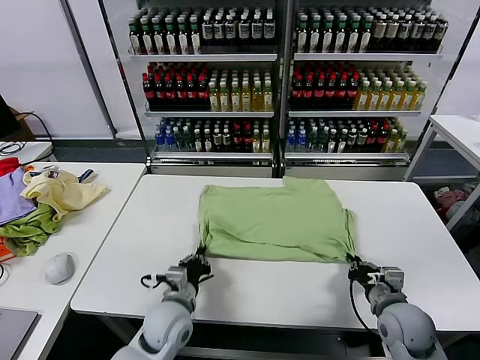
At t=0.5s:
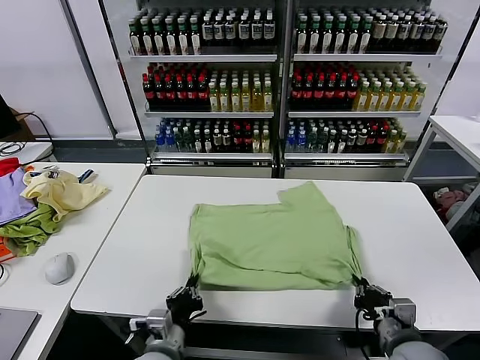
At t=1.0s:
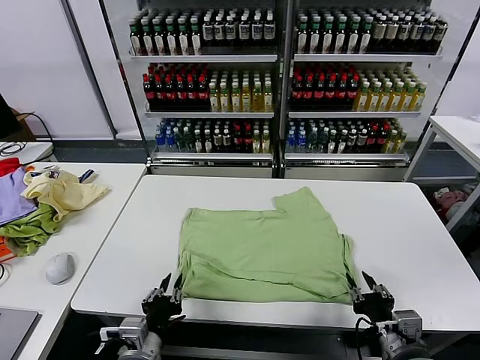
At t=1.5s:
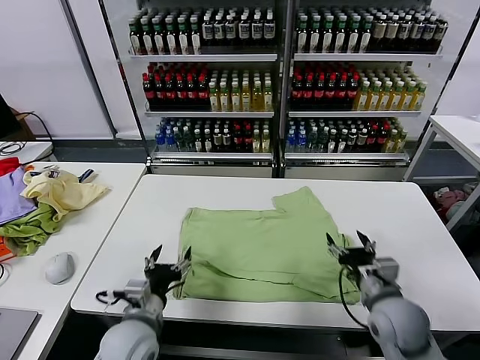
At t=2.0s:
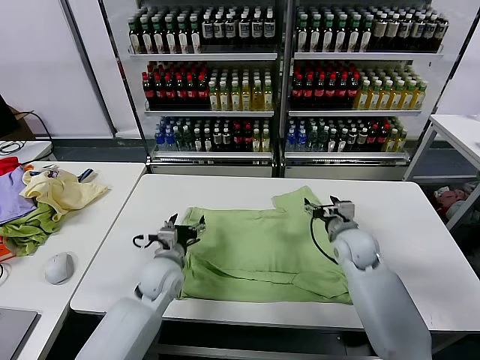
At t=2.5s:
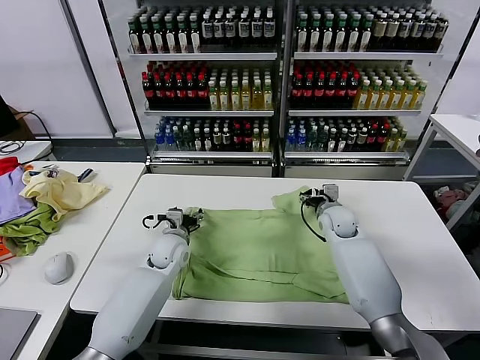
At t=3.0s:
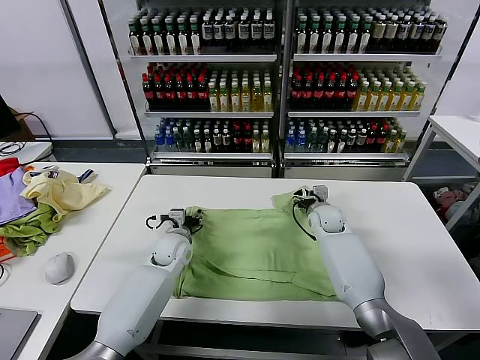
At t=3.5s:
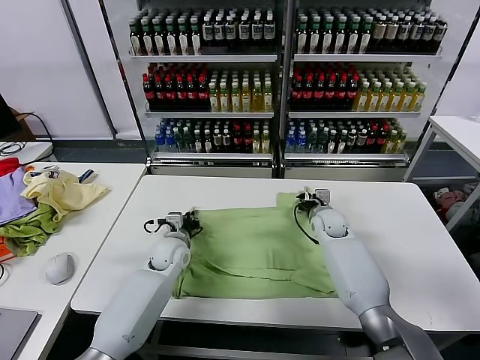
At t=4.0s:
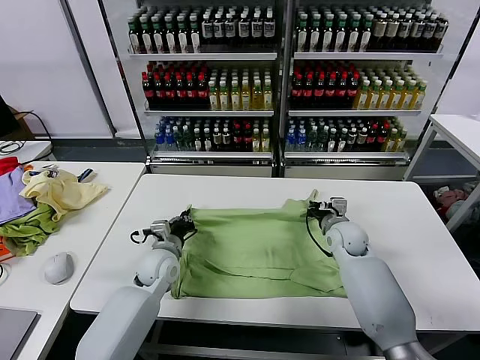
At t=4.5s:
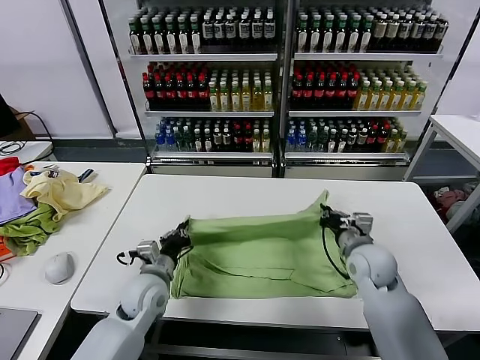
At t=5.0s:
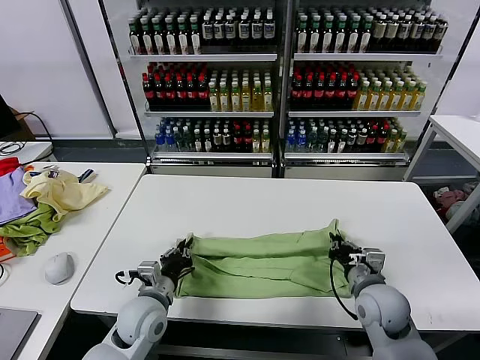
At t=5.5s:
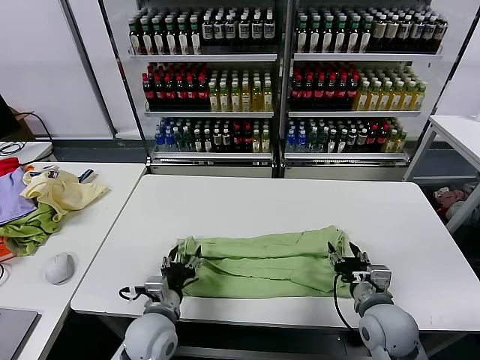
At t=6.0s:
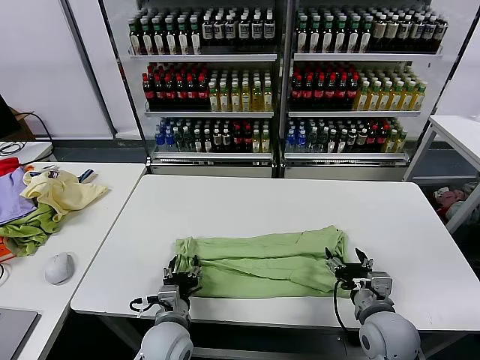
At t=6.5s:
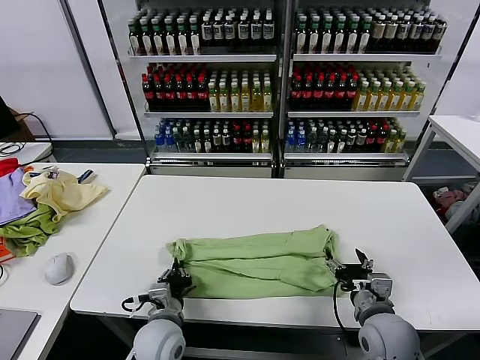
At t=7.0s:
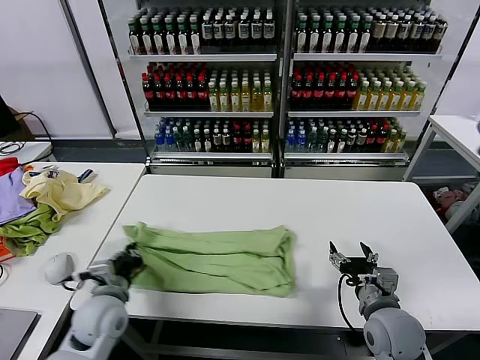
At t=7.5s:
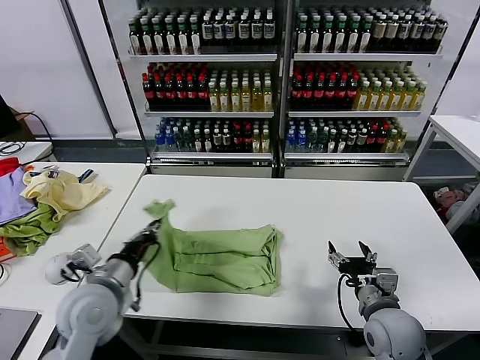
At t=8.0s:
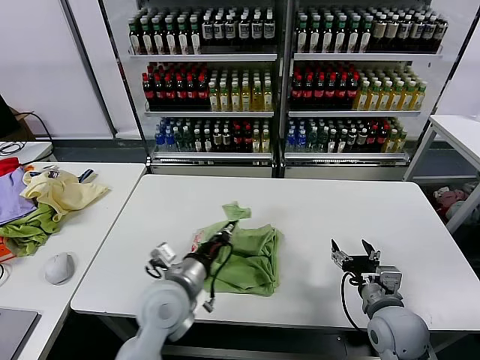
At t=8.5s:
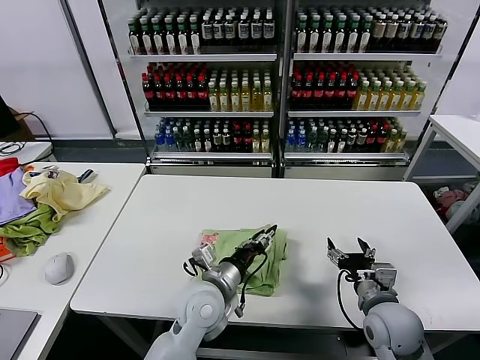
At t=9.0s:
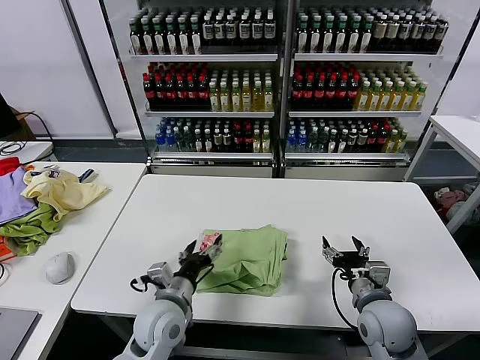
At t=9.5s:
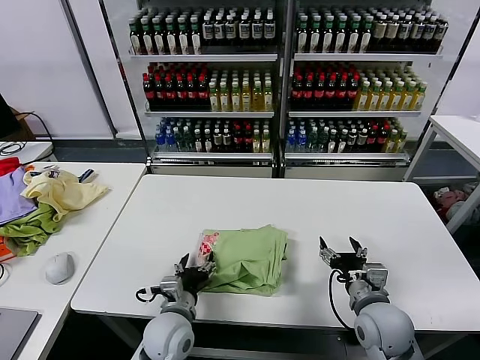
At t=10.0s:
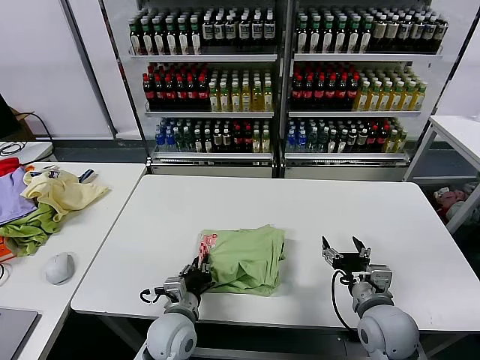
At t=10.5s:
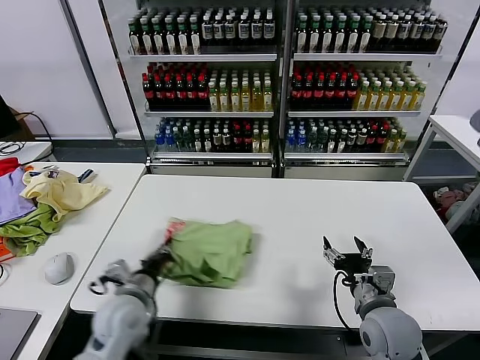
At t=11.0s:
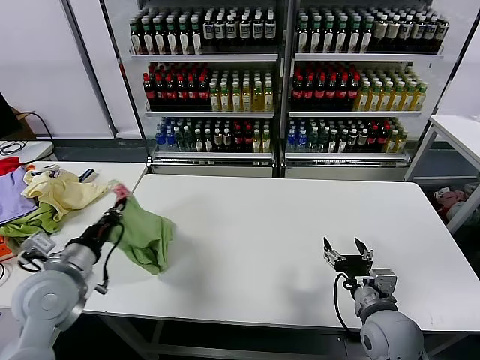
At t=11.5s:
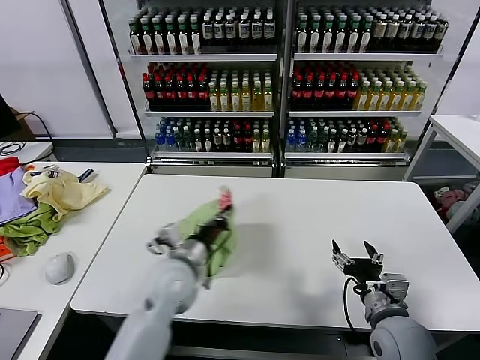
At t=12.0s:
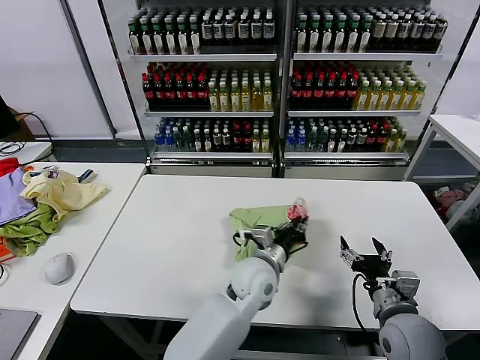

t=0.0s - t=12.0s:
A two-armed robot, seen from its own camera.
Task of the whole recording: fold and organize the clothes.
Step, t=1.0s - t=3.5s: use both grippers simultaneously to clamp the upper edge of the clothing fabric.
Step, t=4.0s - t=5.0s: use both grippers to drag the upper edge of the fabric backward and fold it over the lower edge.
Step, t=5.5s - t=6.5s: use the left gripper to clamp the left edge of the fabric.
Step, t=7.0s - t=8.5s: use the left gripper to drag the left edge of the fabric to the left and folds it over the right edge.
t=0.0s - t=2.0s: The right gripper heads forward, covering some 20 cm, and opens, while the left gripper is displaced forward by roughly 10 cm, and opens its fingers.
t=2.0s - t=4.0s: The right gripper reaches roughly 10 cm forward, then returns, and closes; the left gripper closes.
t=4.0s - t=6.0s: The two grippers go approximately 20 cm backward. The left gripper opens. Meanwhile the right gripper opens up.
t=6.0s - t=8.0s: The left gripper shifts approximately 10 cm upward, and closes its fingers.
t=8.0s - t=10.0s: The left gripper heads downward, covering some 10 cm, and opens and closes again.
t=10.0s - t=12.0s: The left gripper goes about 20 cm to the right, forward and upward.

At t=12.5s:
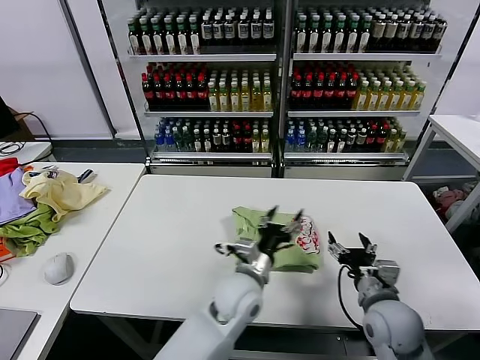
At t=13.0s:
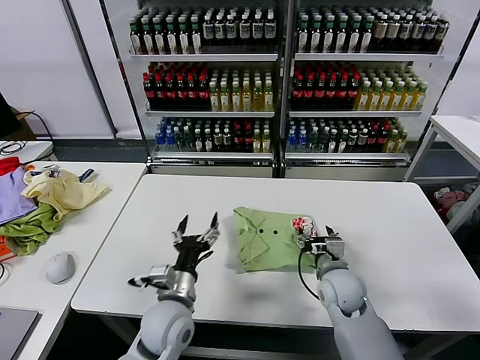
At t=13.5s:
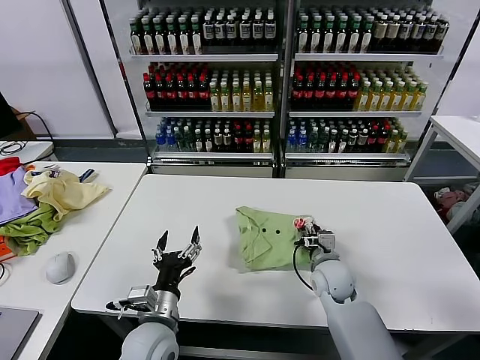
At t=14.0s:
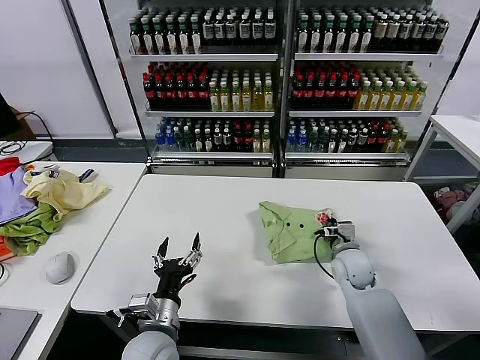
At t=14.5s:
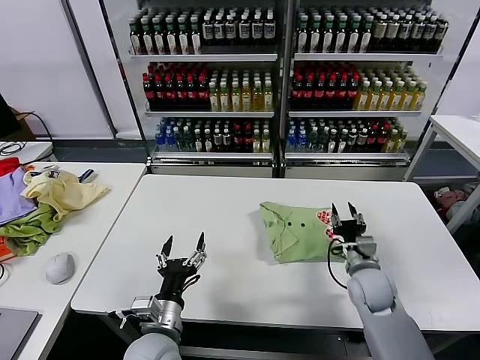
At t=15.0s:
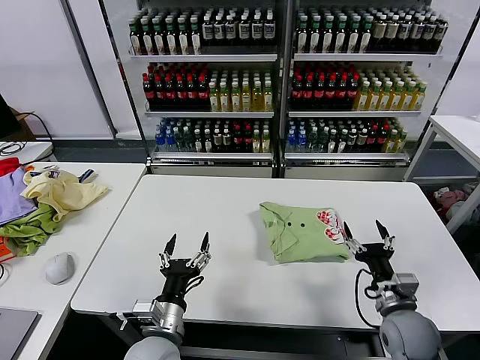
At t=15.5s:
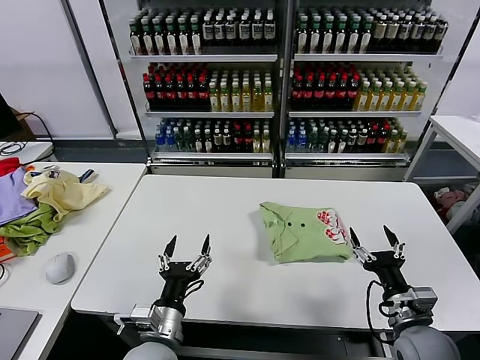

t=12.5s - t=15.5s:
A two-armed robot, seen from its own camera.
Task of the whole recording: fold and organize the clothes.
Step, t=12.5s - t=14.0s: Drag the clothes to the center of the table.
t=12.5s - t=14.0s: The right gripper shifts roughly 15 cm forward, and closes. Meanwhile the left gripper is displaced to the left and backward by about 20 cm.
t=14.0s - t=15.5s: The right gripper shifts approximately 20 cm backward, and opens up.

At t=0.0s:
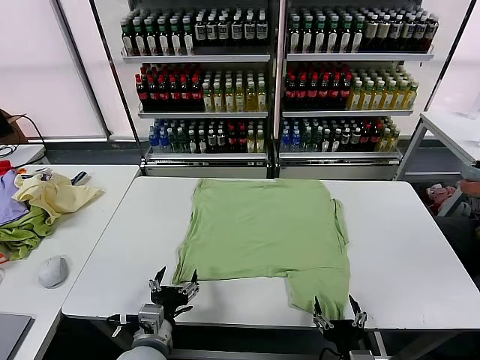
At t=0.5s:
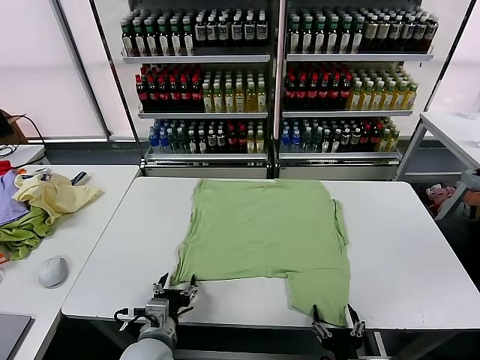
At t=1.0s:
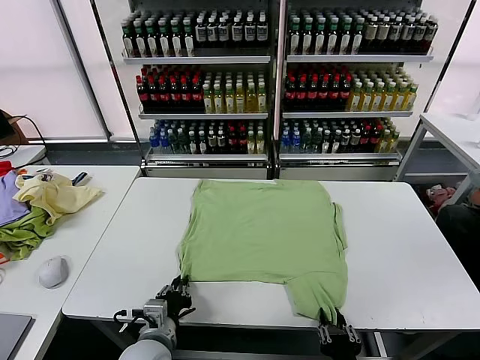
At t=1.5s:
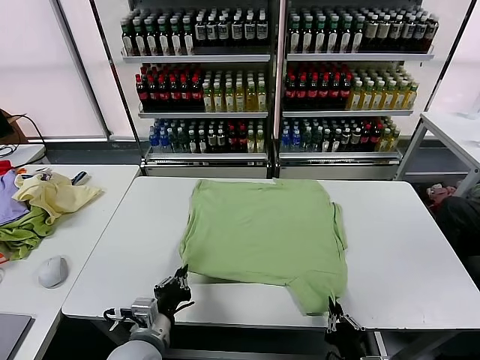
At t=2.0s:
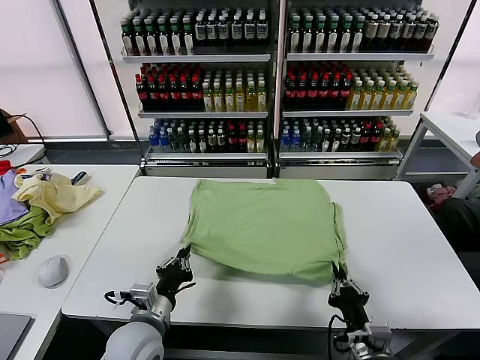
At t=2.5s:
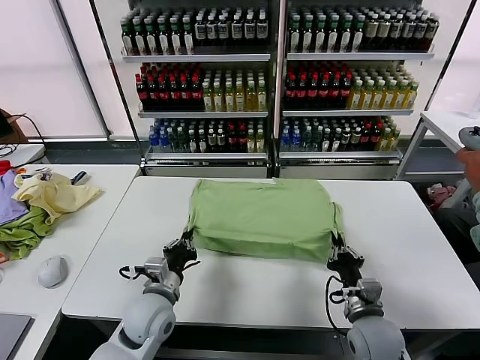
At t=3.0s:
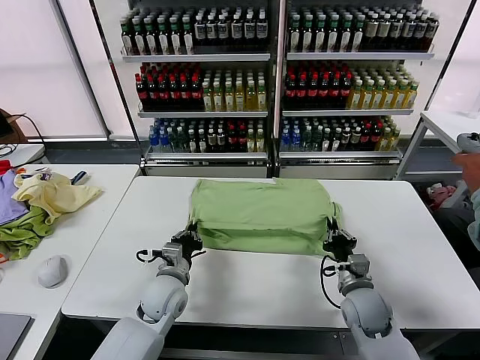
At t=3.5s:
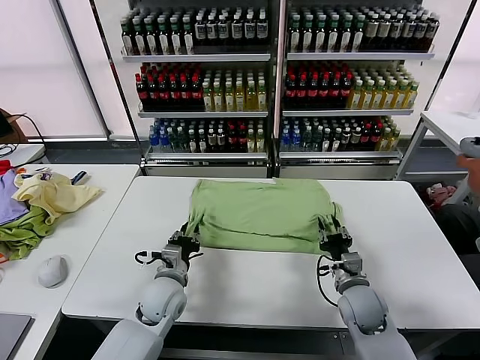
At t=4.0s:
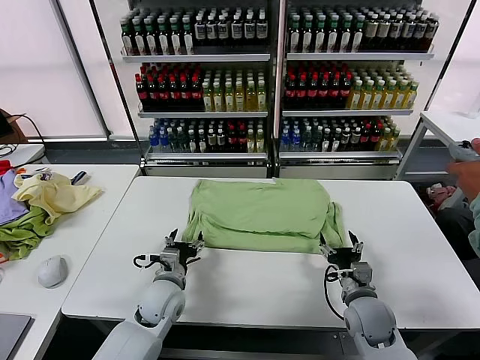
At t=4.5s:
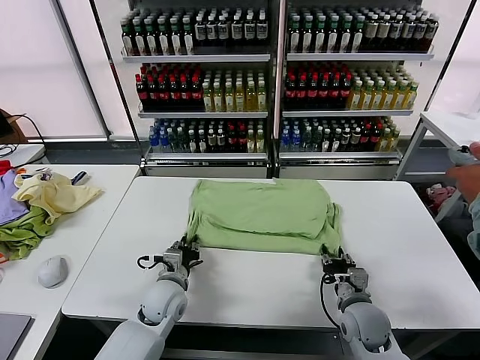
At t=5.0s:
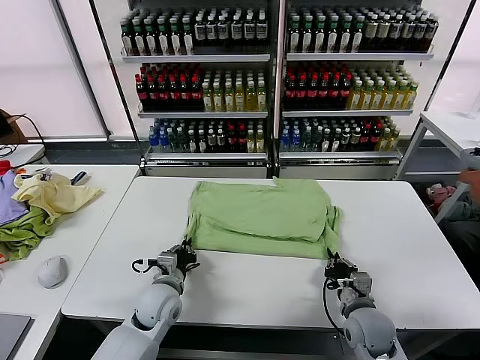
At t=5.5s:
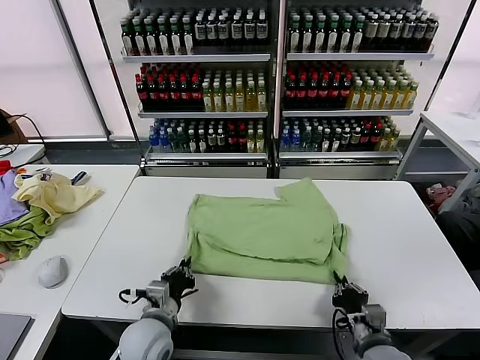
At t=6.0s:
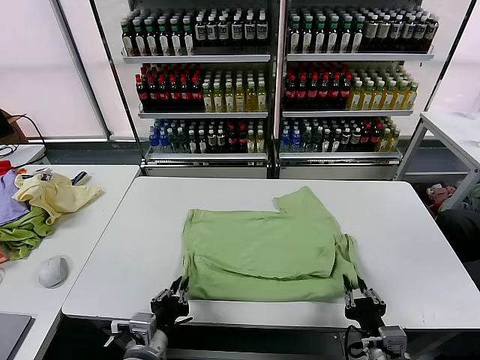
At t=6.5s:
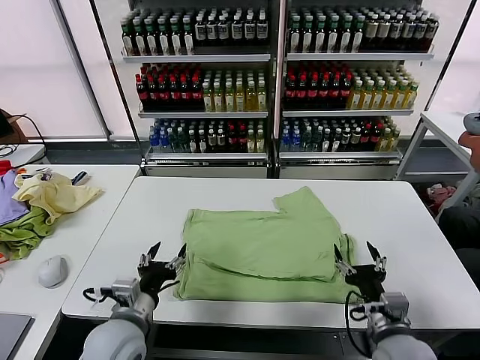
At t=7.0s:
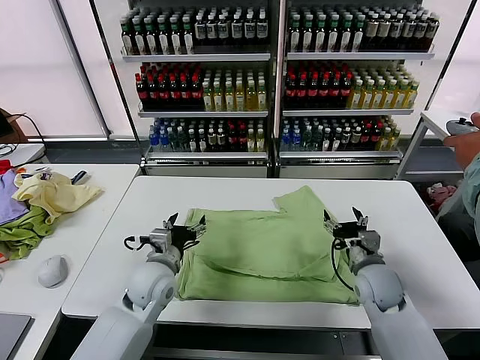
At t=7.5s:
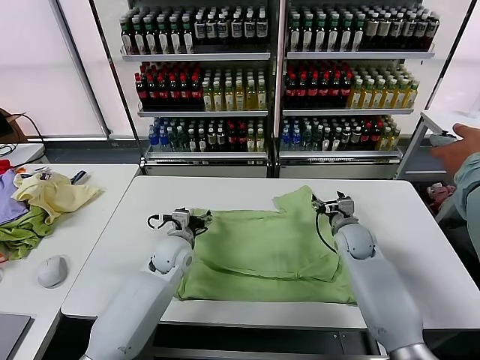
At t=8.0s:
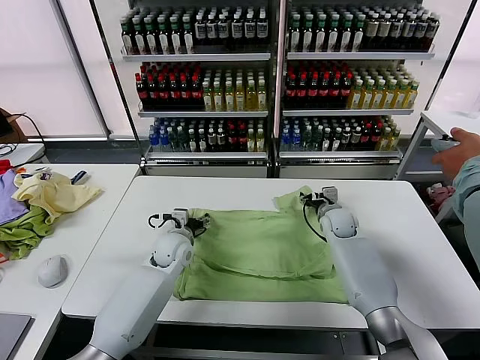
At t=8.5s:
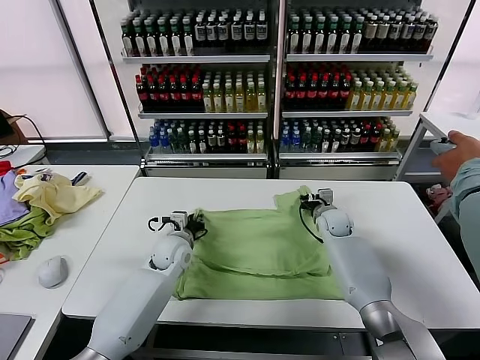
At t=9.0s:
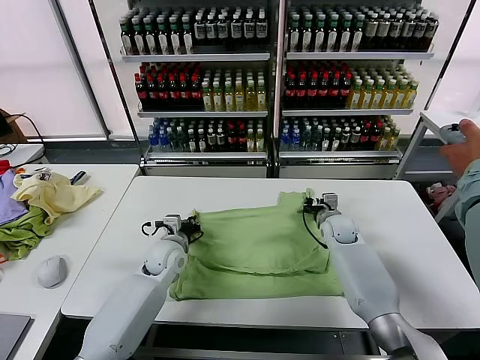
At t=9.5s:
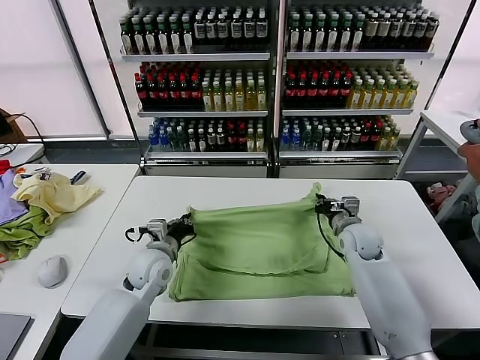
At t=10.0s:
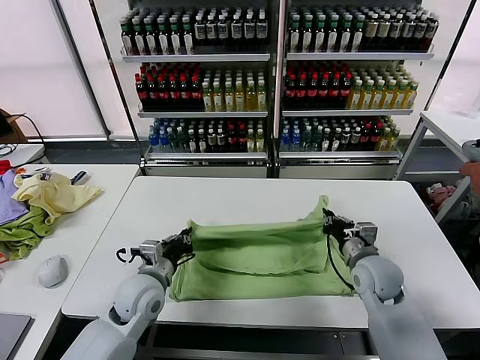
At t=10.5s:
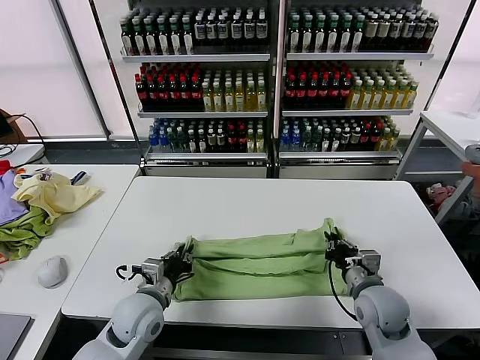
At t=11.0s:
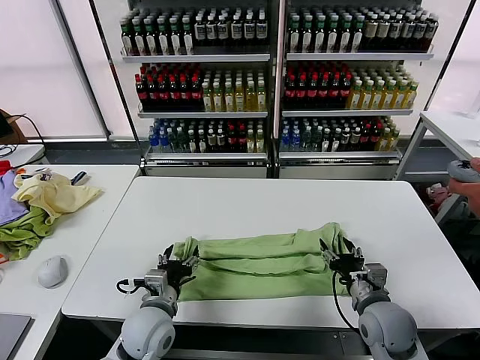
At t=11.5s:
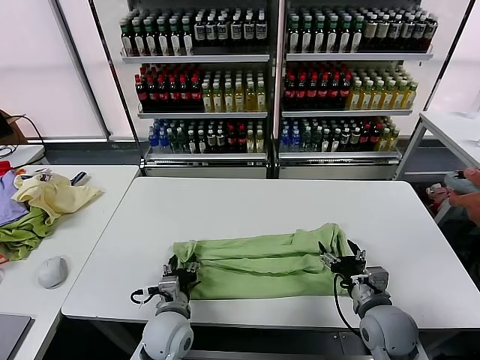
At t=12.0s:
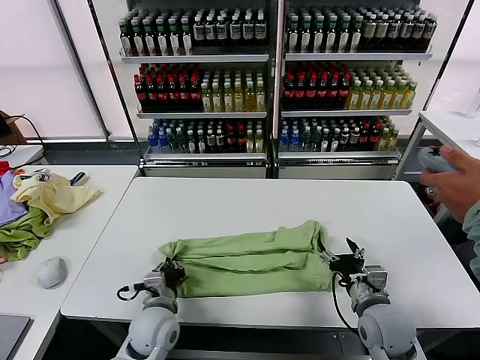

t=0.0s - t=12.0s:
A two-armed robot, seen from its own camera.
Task of the whole recording: fold and organize the clothes.
Step, t=0.0s - t=1.0s: use both grippers simultaneously to clamp the lower edge of the clothing fabric.
Step, t=1.5s - t=3.5s: use both grippers to drag the lower edge of the fabric forward and fold it over the upper edge.
Step, t=4.0s - t=6.0s: Drag the clothes downward with both gripper.
Step, t=6.5s - t=8.5s: use both grippers simultaneously to clamp the upper edge of the clothing fabric.
Step, t=9.0s - t=10.5s: use both grippers to drag the upper edge of the fabric backward and fold it over the lower edge.
Step, t=11.0s - t=12.0s: use the left gripper to clamp the left edge of the fabric.
t=2.0s - t=4.0s: Both grippers travel together forward, approximately 10 cm. The right gripper opens. Meanwhile the left gripper opens up.
t=4.0s - t=6.0s: The grippers both shift backward by some 15 cm. The right gripper closes, while the left gripper closes its fingers.
t=6.0s - t=8.0s: The grippers both shift forward by some 35 cm. The left gripper opens its fingers, while the right gripper opens up.
t=8.0s - t=10.0s: The two grippers go some 15 cm backward. The right gripper closes; the left gripper closes its fingers.
t=10.0s - t=12.0s: The right gripper shifts approximately 10 cm backward, and opens its fingers. The left gripper goes about 5 cm downward, and opens and closes again.
